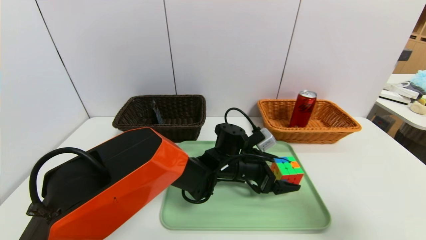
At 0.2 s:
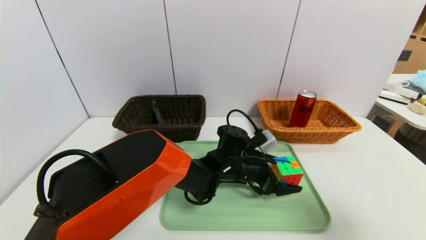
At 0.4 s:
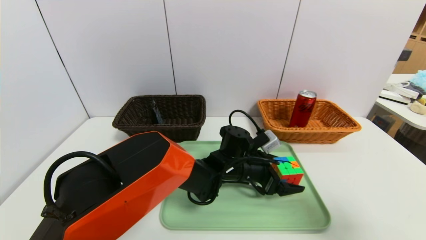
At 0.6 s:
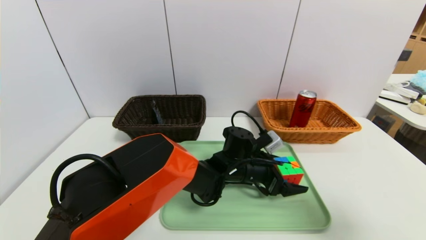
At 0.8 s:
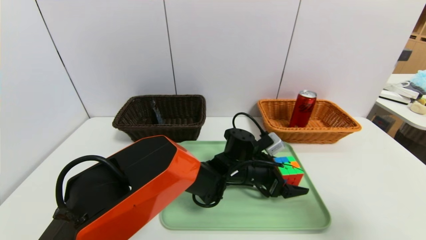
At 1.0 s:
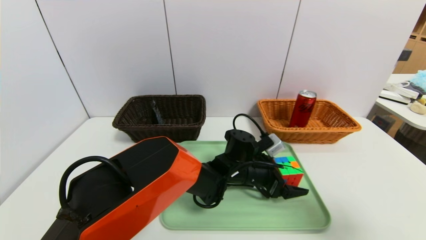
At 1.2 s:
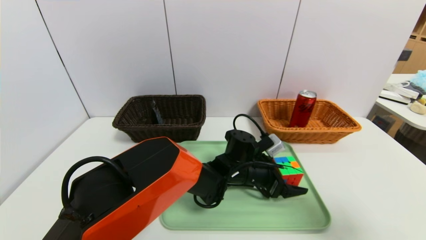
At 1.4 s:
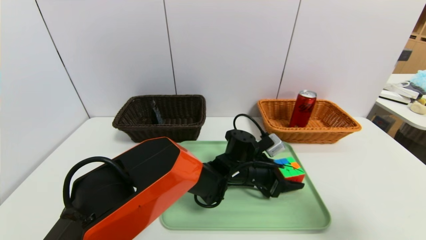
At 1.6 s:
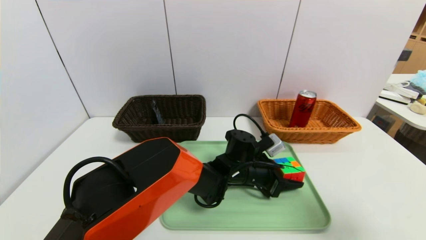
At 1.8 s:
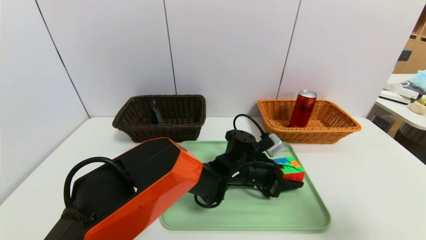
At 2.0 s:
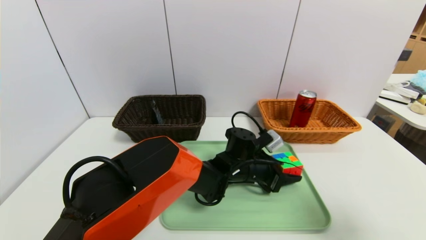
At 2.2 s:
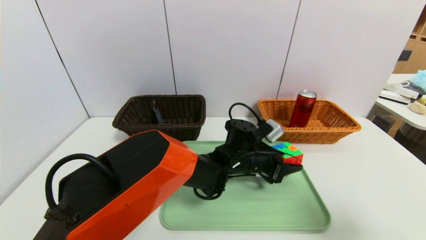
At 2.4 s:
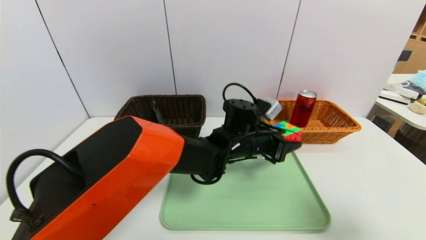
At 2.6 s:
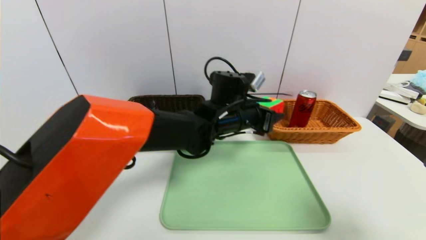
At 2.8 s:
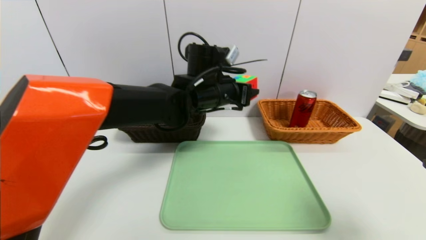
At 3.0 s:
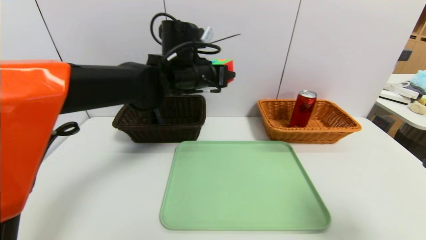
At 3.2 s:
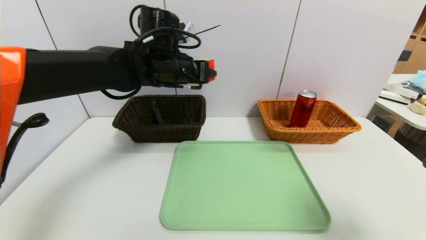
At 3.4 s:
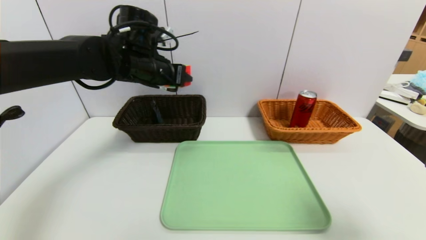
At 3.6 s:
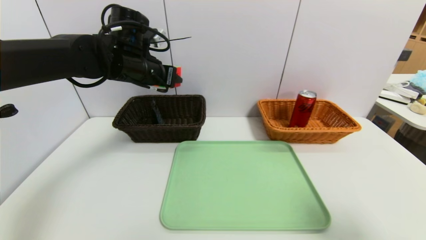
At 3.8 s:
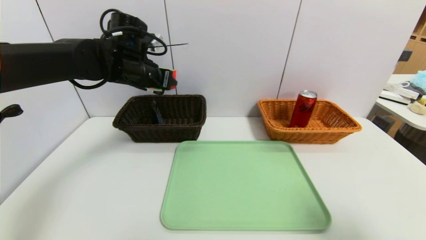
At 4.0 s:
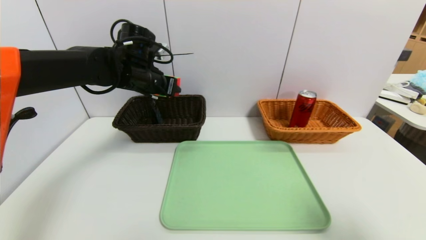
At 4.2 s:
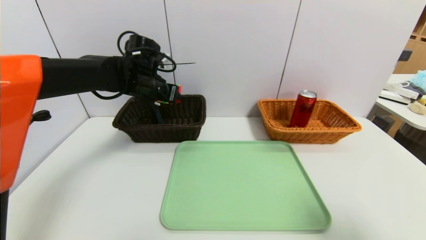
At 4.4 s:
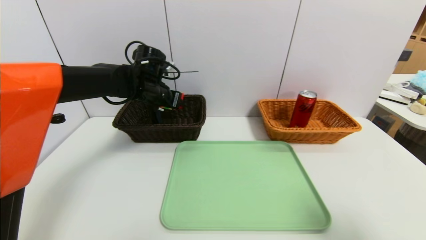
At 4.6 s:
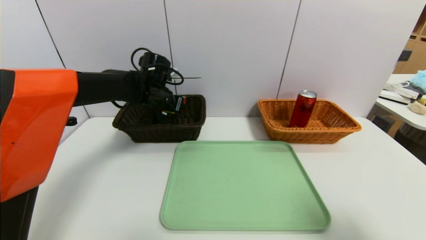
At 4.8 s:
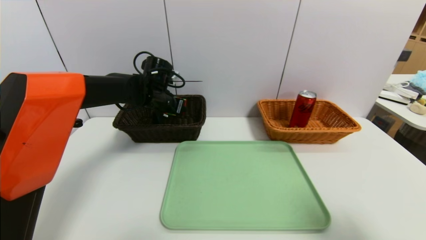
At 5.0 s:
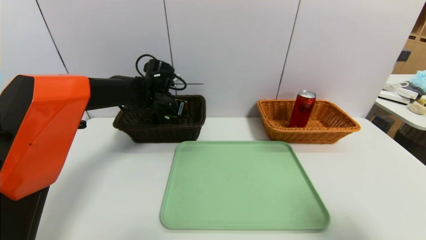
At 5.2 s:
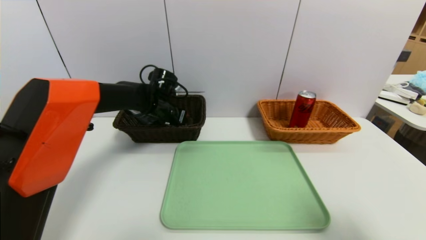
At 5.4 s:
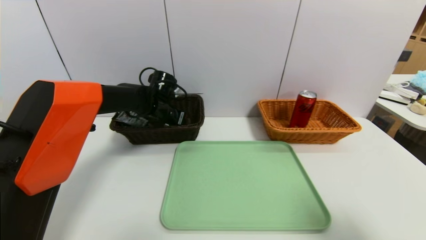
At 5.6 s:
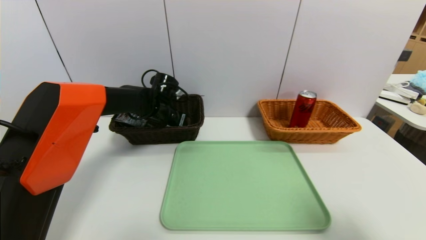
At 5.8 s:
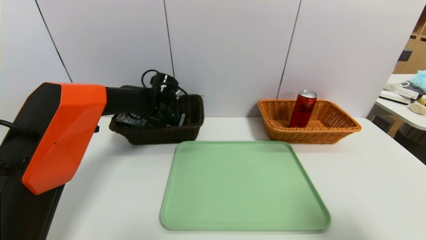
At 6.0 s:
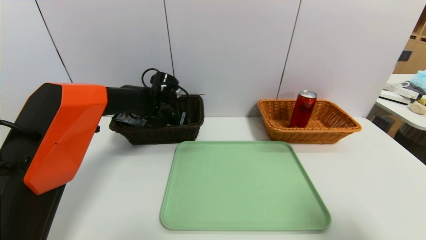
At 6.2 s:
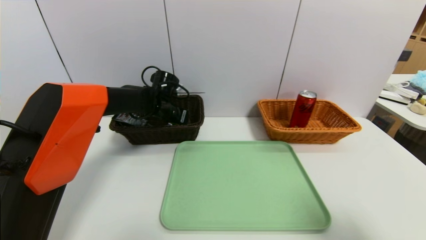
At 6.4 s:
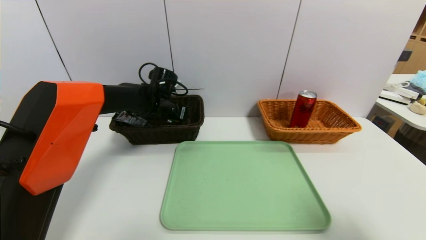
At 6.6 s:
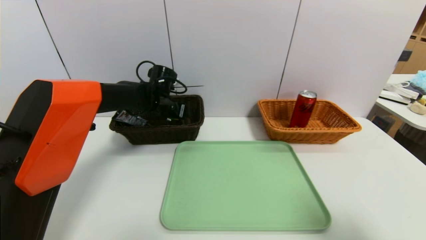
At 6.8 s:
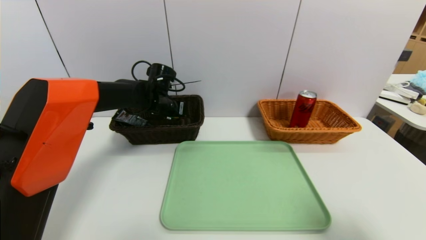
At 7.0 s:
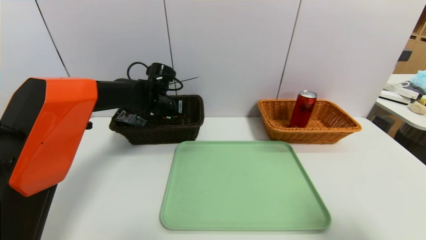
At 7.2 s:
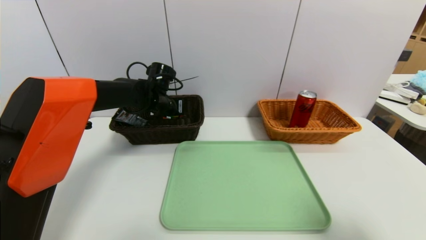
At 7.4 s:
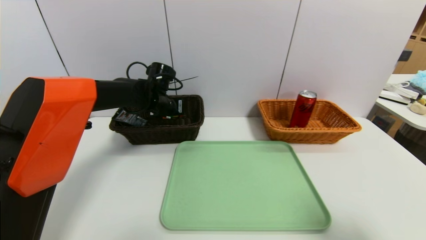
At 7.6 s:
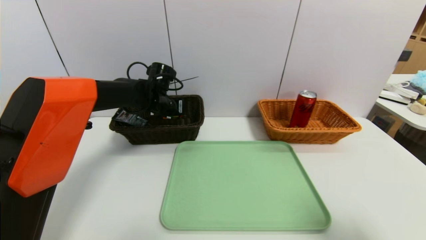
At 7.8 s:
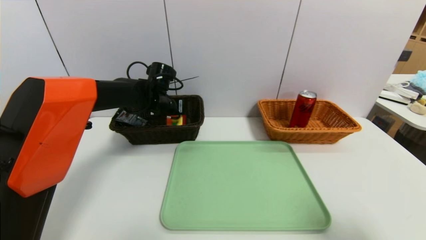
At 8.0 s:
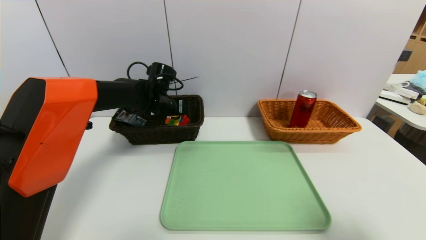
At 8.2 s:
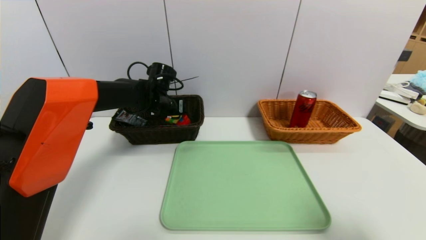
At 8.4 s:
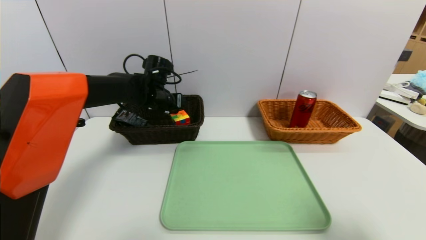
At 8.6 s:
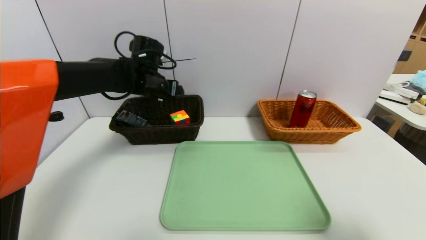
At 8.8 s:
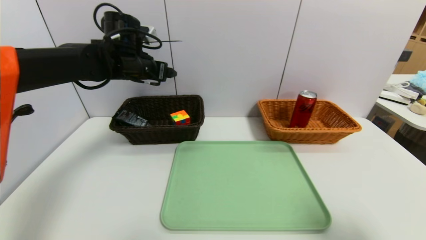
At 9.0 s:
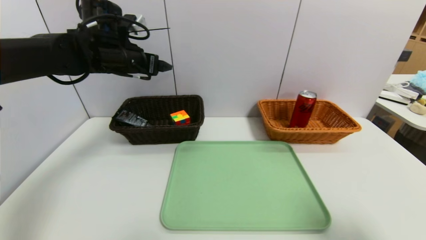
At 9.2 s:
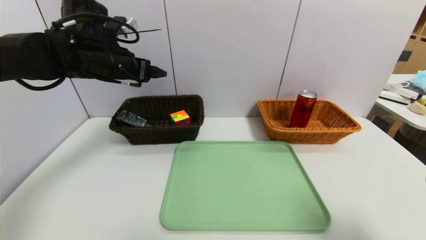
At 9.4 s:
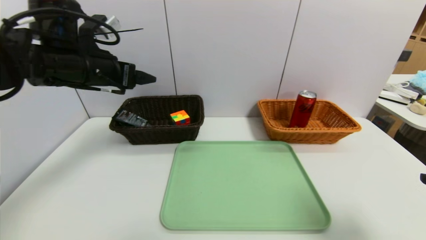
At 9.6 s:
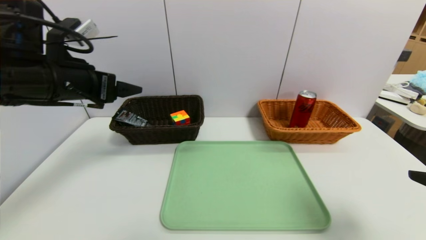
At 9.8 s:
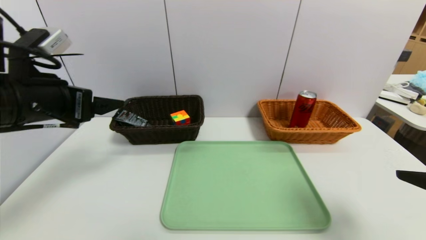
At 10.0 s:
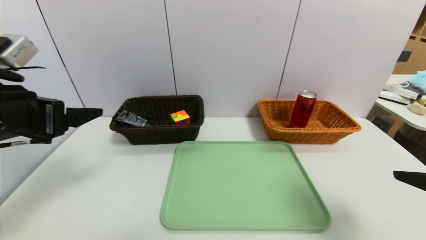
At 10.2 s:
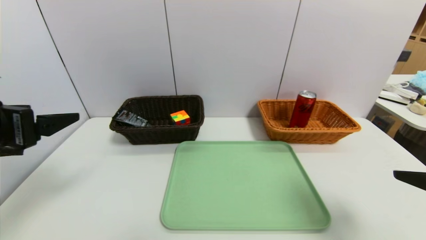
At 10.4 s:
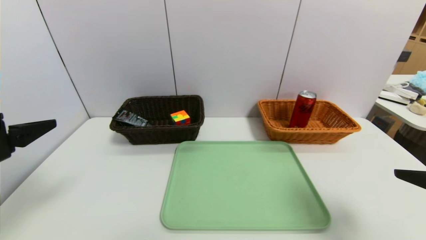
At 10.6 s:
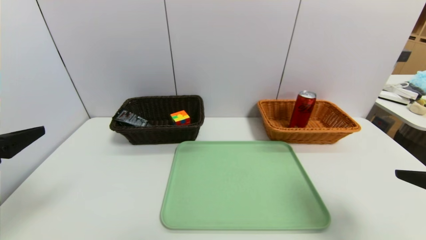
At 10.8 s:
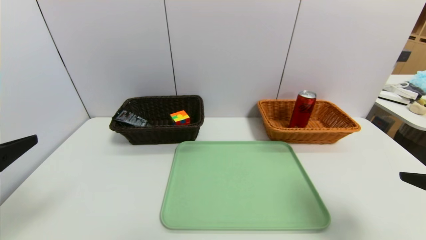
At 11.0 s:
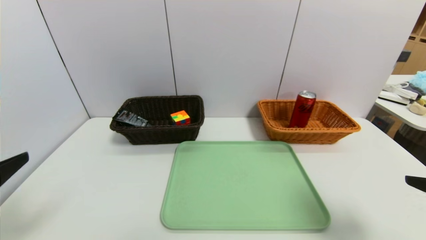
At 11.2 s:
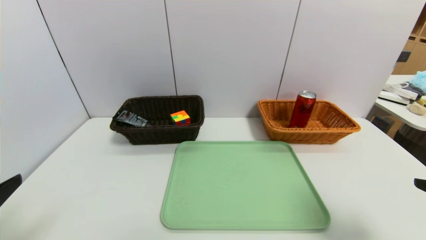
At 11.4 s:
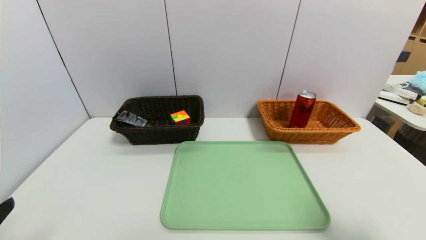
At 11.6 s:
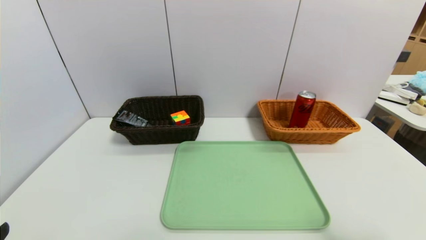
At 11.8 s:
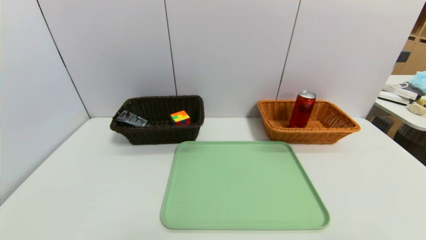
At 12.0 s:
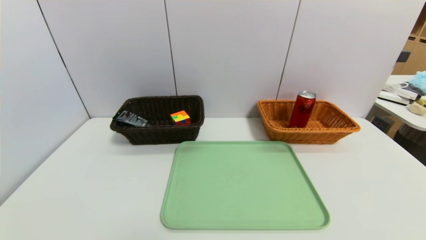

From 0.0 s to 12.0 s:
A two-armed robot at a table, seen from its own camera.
Task of the whole recording: place the food in the right basket with the right gripper, and place the non food items in the left basket with the left gripper.
Step, from 0.0 s to 8.2 s: Grasp the rubiks cube and put it in the left basket.
From 0.0 s to 1.6 s: The left gripper closes its fingers.
From 1.6 s to 3.0 s: The left gripper moves upward and to the left, about 25 cm.
From 3.0 s to 4.4 s: The left gripper goes some 10 cm to the left and downward.
From 4.4 s to 6.0 s: The left gripper moves downward, roughly 5 cm.
From 6.0 s to 7.6 s: There are only small adjustments of the grippers.
From 7.6 s to 9.0 s: The left gripper travels upward, to the left and backward by about 15 cm, and opens up.
From 9.0 s to 10.4 s: The left gripper heads backward, covering about 25 cm.
From 10.4 s to 12.0 s: The right gripper heads backward, covering some 15 cm. The left gripper goes roughly 20 cm backward and downward.
